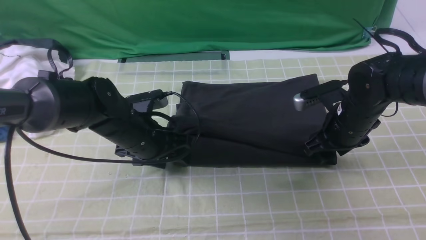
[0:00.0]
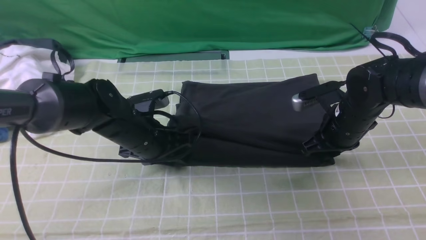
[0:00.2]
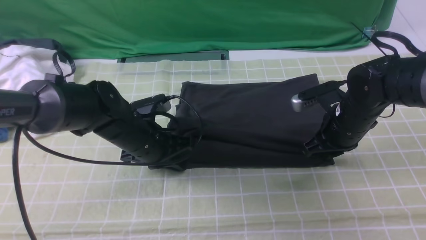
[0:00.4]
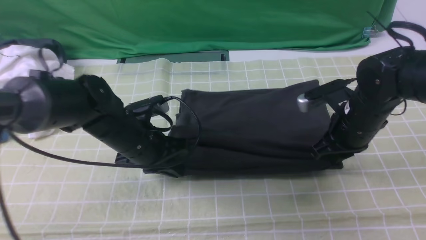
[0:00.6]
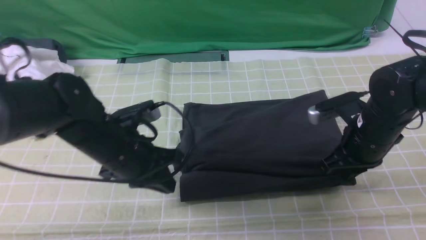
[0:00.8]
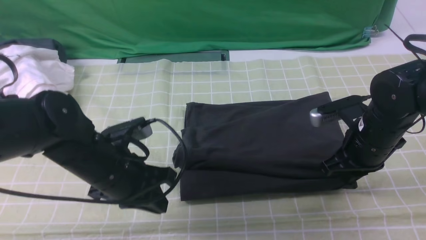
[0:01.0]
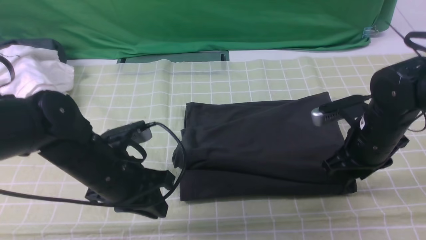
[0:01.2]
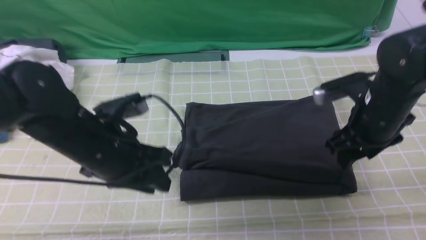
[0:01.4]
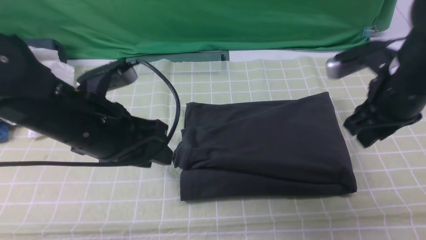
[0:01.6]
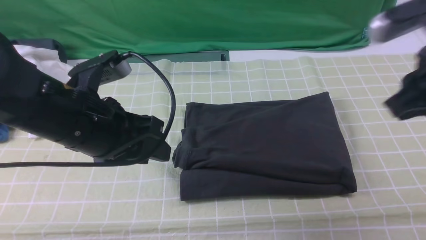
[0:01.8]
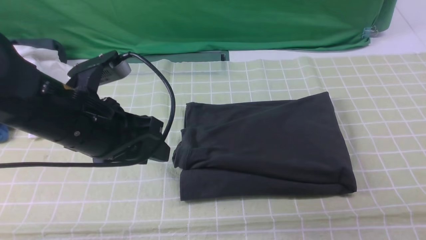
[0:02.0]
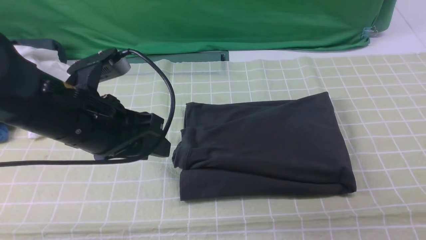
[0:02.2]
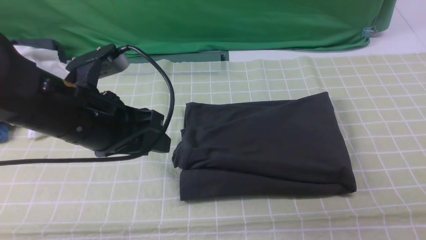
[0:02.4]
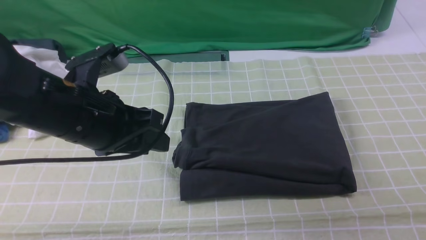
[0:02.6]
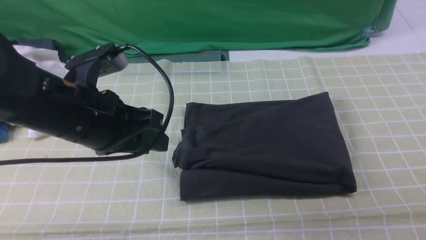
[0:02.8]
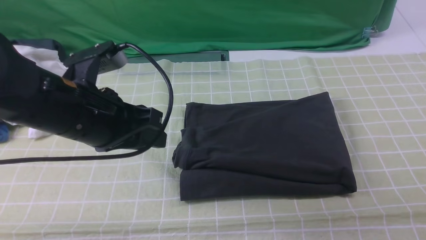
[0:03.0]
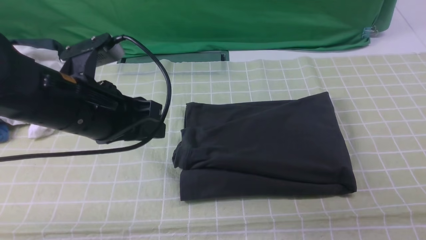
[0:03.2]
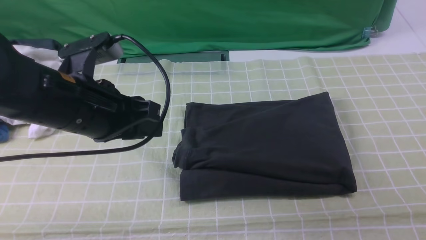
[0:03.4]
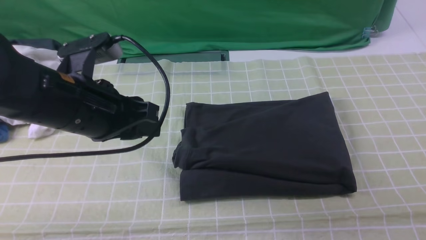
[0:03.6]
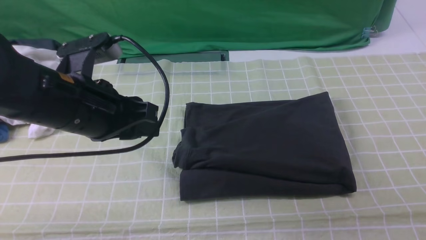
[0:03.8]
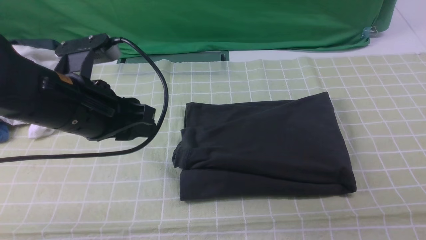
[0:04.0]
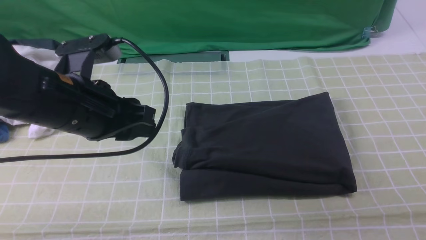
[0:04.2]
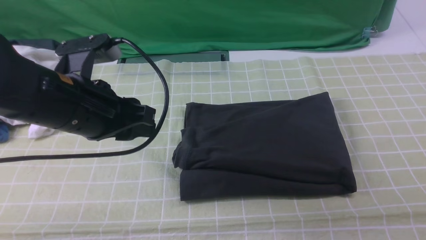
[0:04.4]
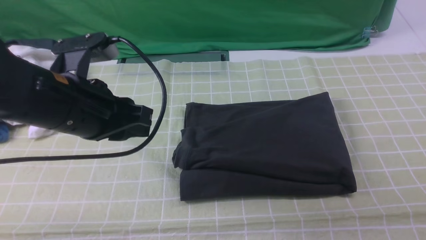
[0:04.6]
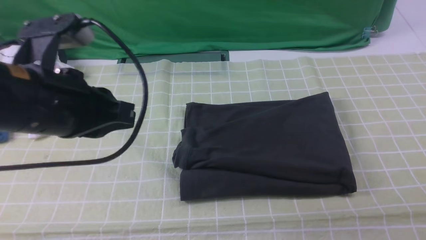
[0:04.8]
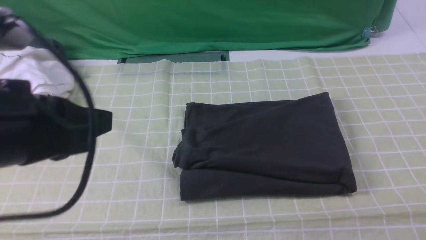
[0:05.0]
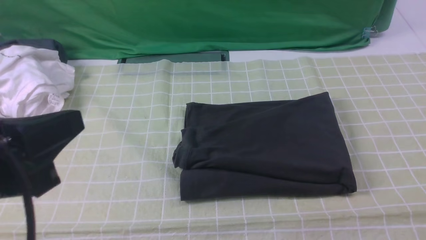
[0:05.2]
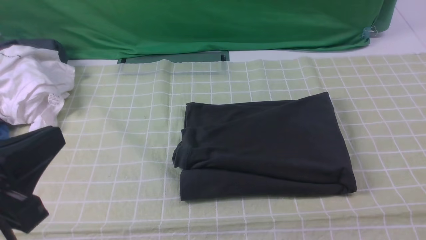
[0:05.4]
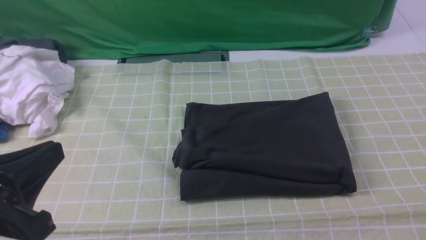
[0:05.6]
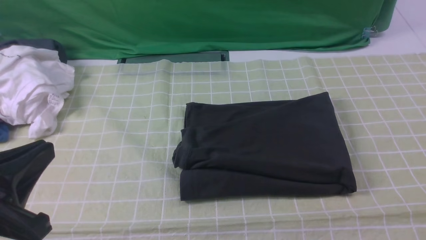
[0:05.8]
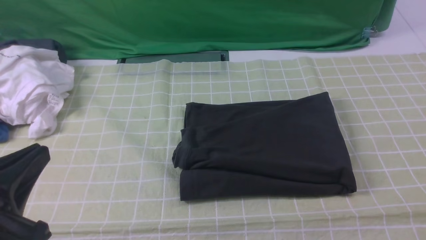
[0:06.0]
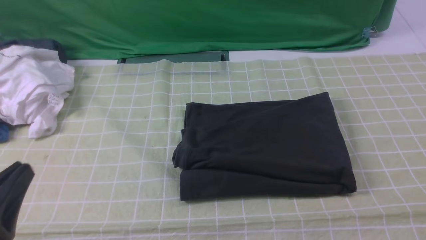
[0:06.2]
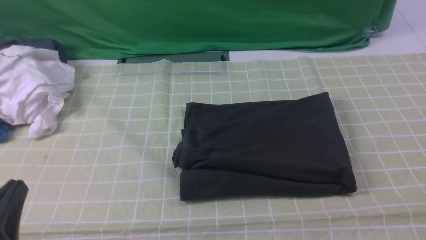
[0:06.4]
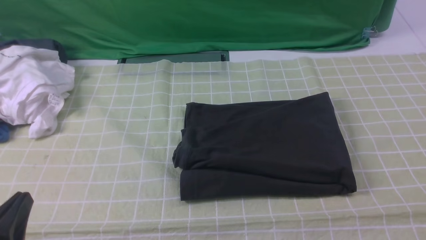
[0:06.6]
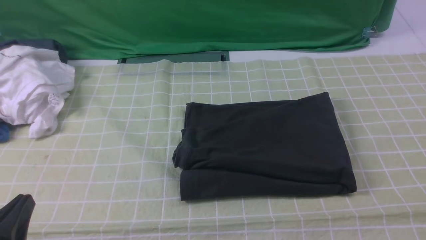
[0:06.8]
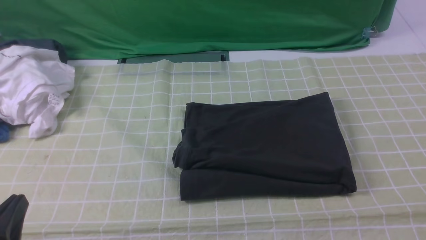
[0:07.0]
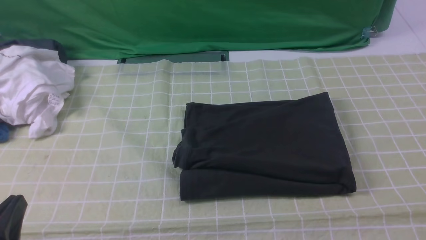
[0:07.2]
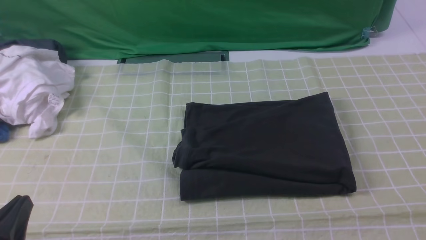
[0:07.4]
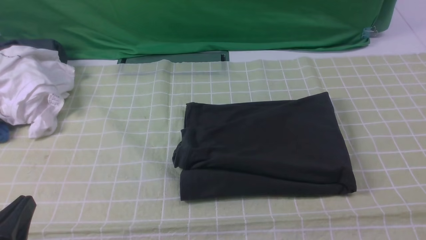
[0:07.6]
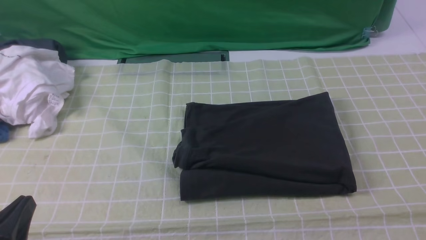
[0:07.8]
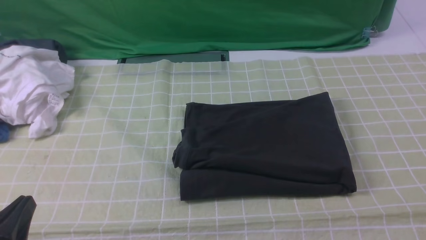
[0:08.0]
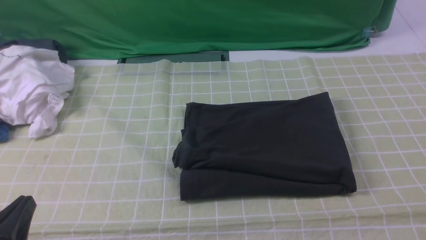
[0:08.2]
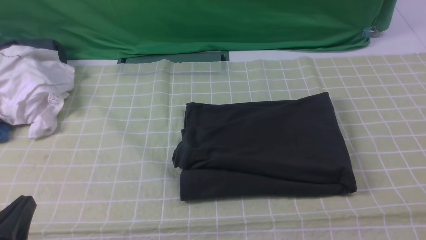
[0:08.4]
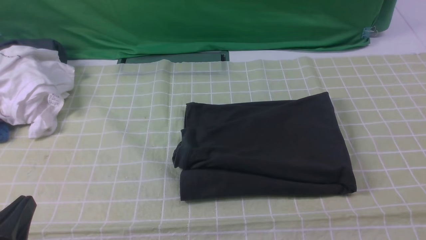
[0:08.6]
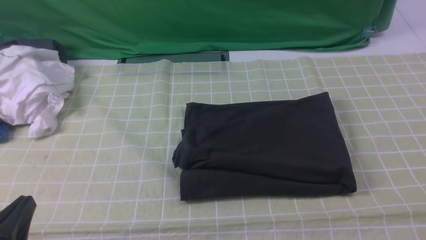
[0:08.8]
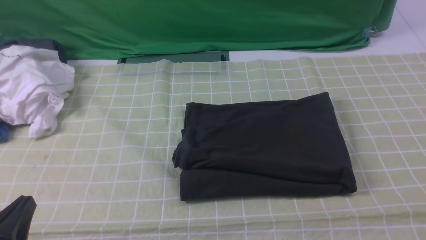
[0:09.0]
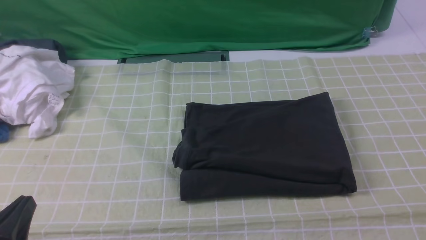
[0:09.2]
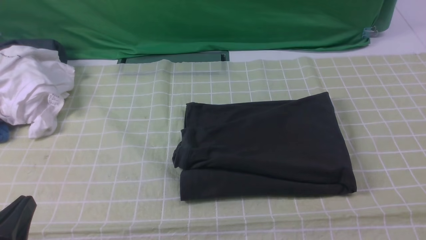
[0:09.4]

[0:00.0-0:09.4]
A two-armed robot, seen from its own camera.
0:00.0 to 0:01.6: Both grippers move upward and backward, some 15 cm. The left gripper closes and opens again.
0:01.6 to 0:03.2: The right gripper heads backward, covering about 20 cm.
0:03.2 to 0:04.8: The left gripper is displaced backward by roughly 5 cm, and closes. The right gripper is displaced downward by approximately 10 cm.
0:04.8 to 0:06.2: The left gripper is displaced backward, downward and to the left by approximately 15 cm.
0:06.2 to 0:07.8: The left gripper heads downward, covering some 5 cm.
0:07.8 to 0:09.4: Neither gripper changes place.
